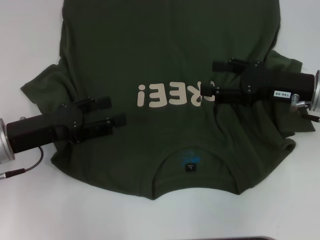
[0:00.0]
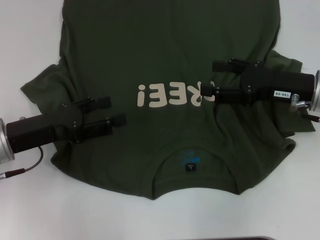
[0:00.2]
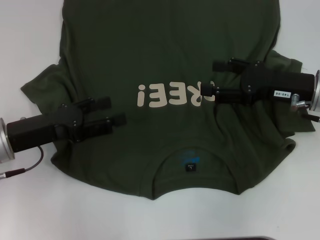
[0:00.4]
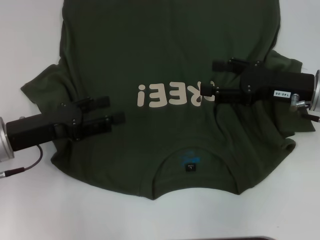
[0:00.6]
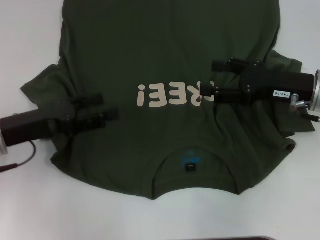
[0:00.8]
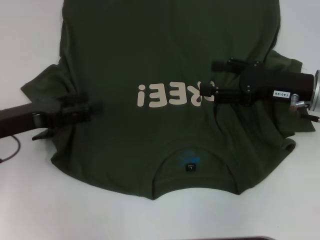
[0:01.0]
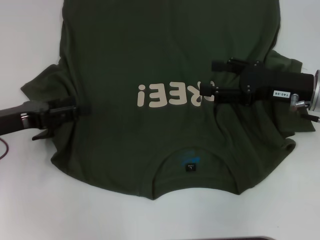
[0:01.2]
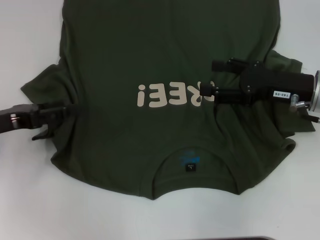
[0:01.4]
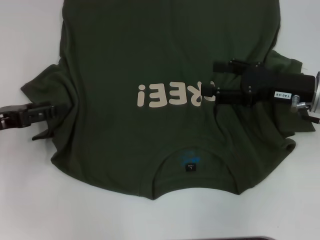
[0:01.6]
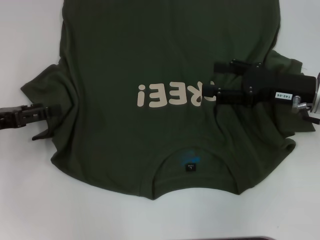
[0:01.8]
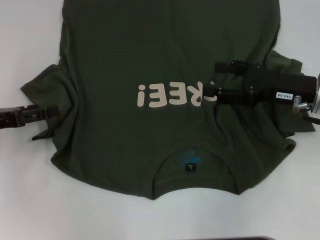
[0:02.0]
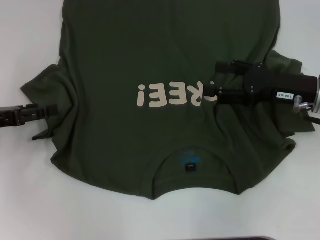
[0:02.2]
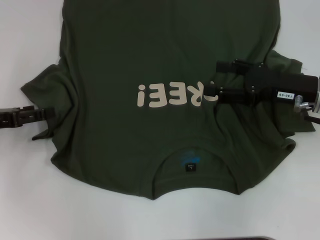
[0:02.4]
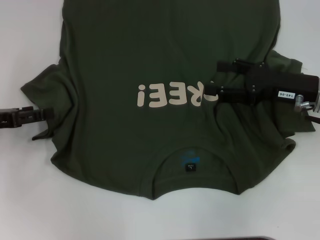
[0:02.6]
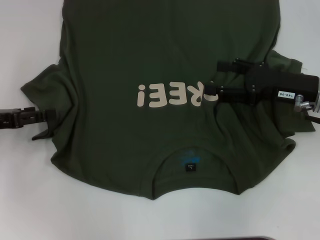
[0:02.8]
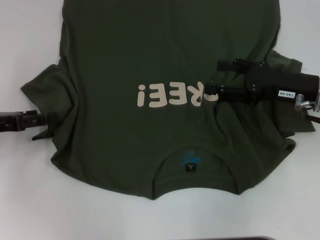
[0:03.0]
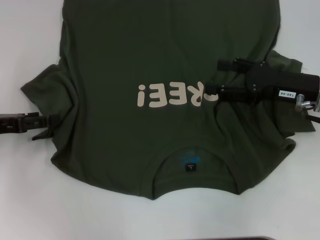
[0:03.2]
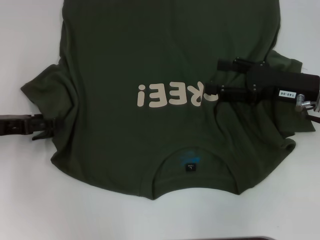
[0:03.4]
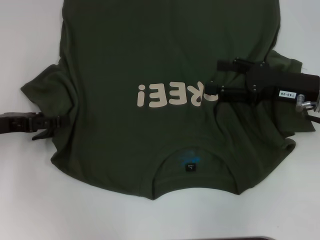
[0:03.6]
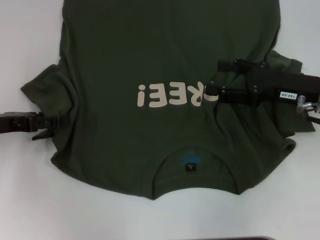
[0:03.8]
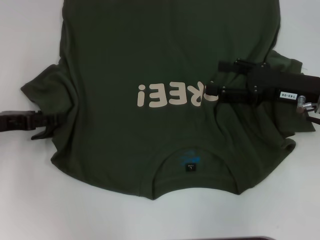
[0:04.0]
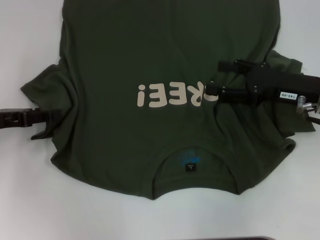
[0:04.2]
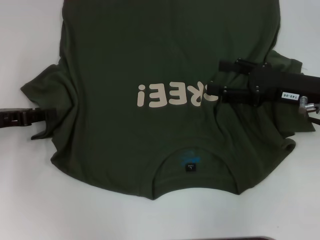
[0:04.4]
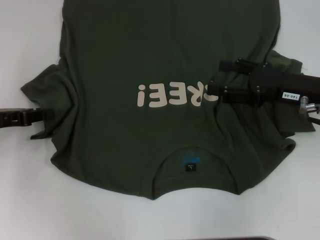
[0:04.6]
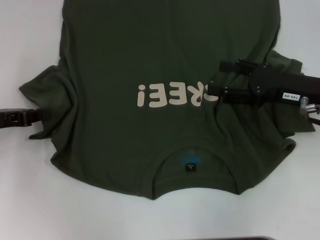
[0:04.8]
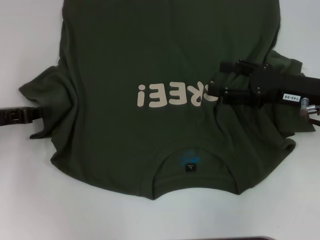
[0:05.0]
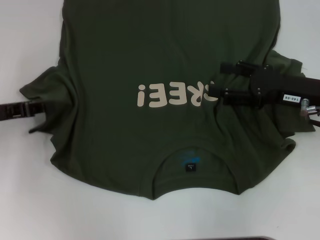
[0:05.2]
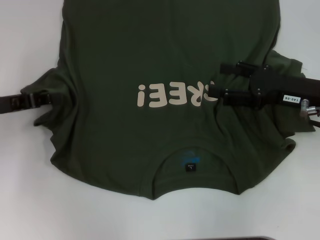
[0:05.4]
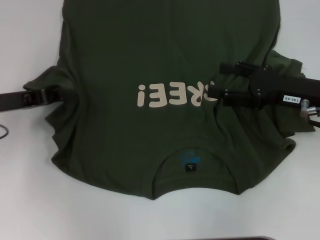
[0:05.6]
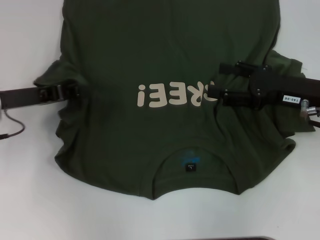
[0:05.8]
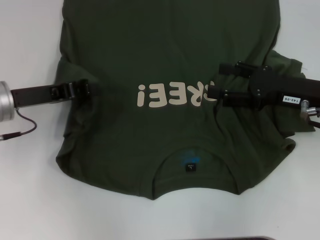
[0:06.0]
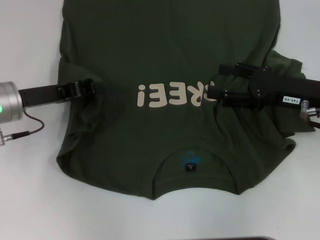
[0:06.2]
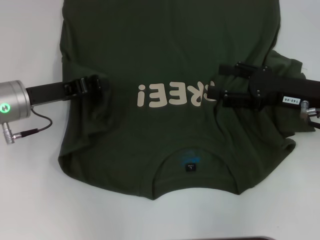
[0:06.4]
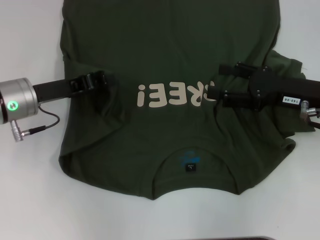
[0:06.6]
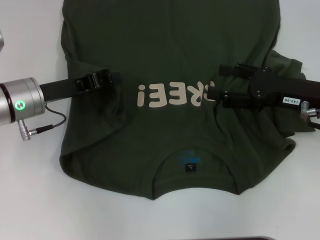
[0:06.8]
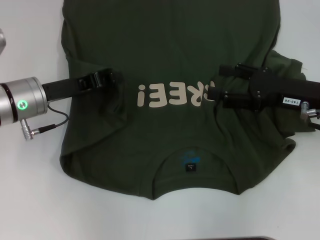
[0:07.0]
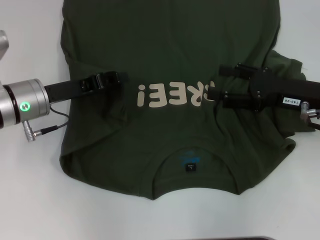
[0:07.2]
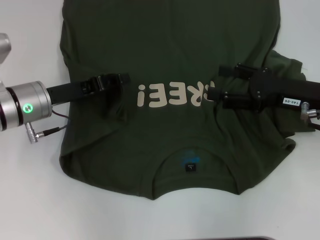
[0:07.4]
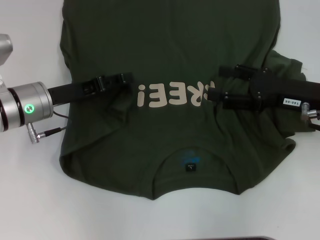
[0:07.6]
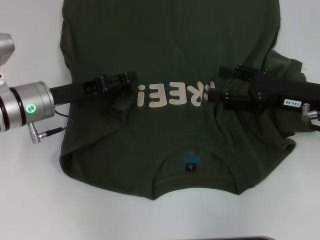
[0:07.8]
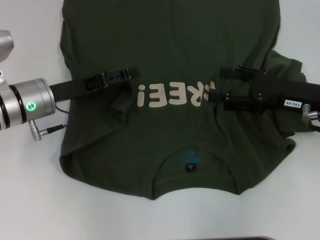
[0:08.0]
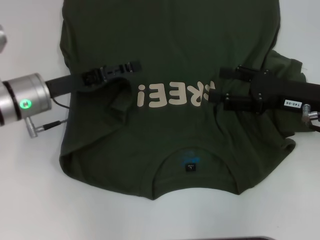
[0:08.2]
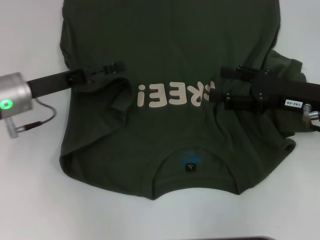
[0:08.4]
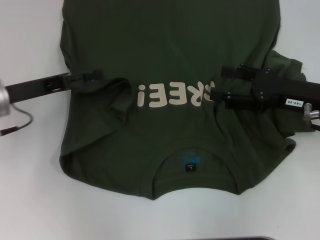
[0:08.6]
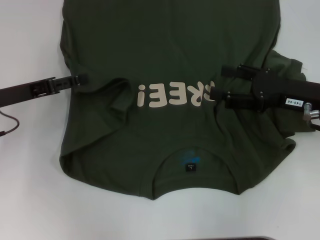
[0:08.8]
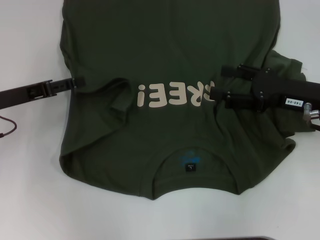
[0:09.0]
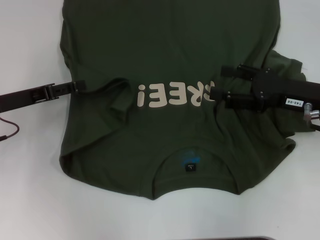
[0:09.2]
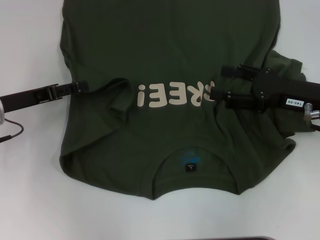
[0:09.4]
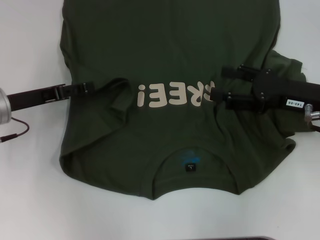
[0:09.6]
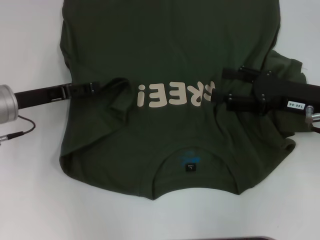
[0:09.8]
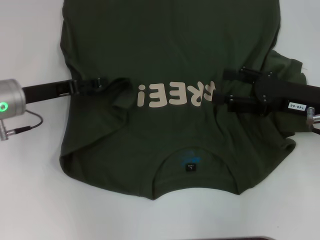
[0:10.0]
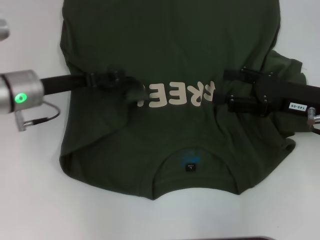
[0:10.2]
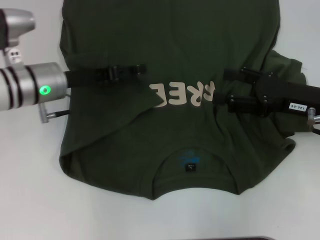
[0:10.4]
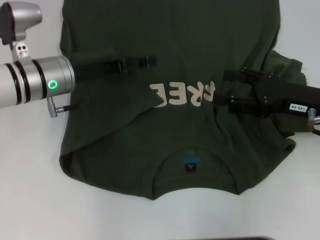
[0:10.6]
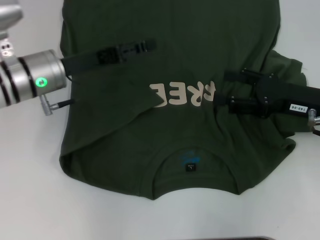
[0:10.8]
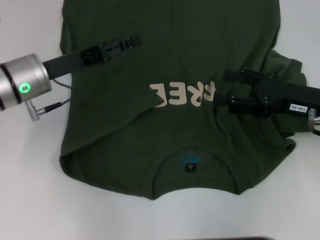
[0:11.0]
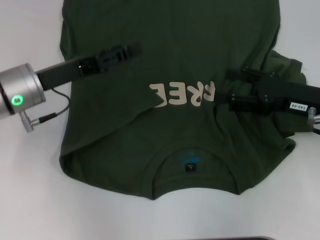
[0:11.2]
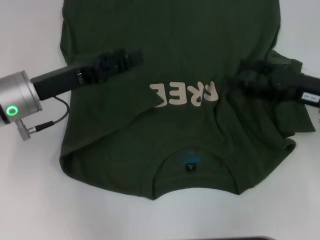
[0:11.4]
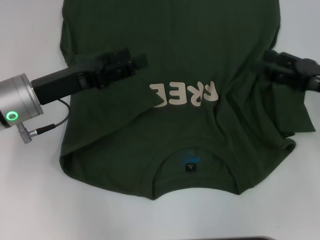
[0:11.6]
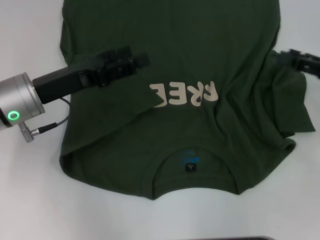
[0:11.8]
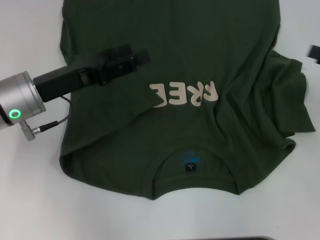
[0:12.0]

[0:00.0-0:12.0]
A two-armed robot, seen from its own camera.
Step, 0:00.0 to 0:11.2: Fold the bottom left sleeve with your left hand.
0:00.0 to 0:01.6: The left gripper travels to the left by approximately 5 cm.
0:01.6 to 0:04.4: The grippers move only a little.
0:04.4 to 0:06.0: The left gripper travels to the right by about 5 cm, and closes up.
0:06.0 to 0:07.6: The left gripper moves some 5 cm, and opens its fingers.
0:07.6 to 0:09.0: The left gripper shifts about 5 cm to the left, and opens up.
0:09.0 to 0:10.4: The left gripper shifts some 10 cm to the right.
0:10.4 to 0:12.0: The left gripper heads backward, covering some 5 cm, while the right gripper shifts some 10 cm to the right.

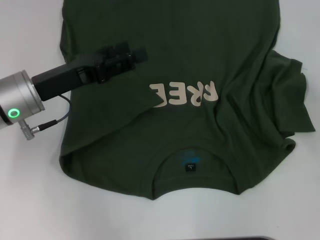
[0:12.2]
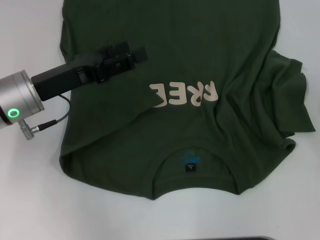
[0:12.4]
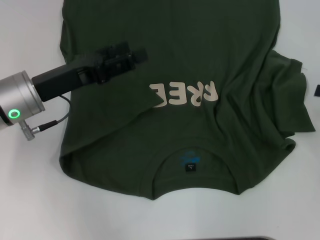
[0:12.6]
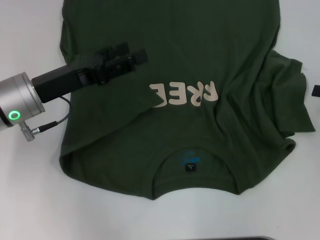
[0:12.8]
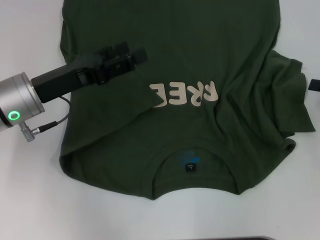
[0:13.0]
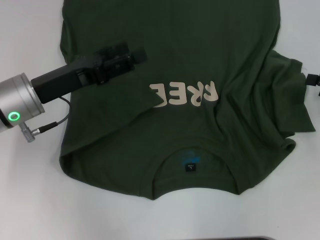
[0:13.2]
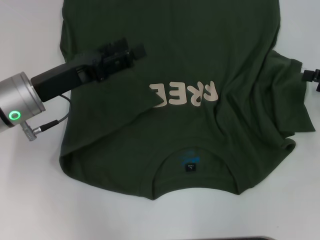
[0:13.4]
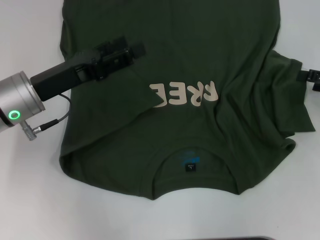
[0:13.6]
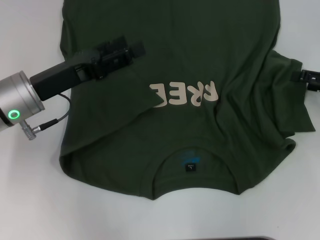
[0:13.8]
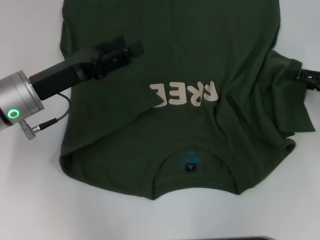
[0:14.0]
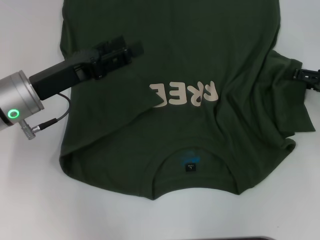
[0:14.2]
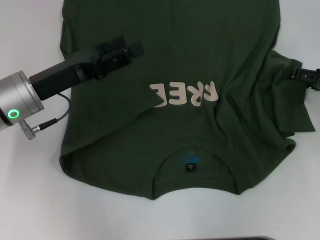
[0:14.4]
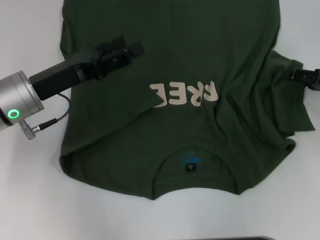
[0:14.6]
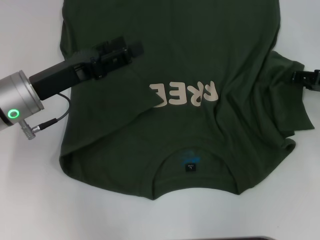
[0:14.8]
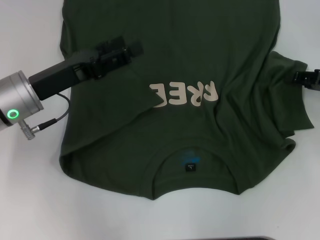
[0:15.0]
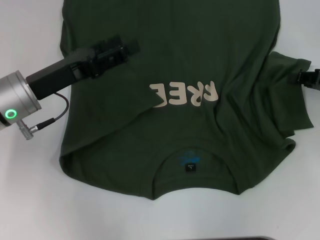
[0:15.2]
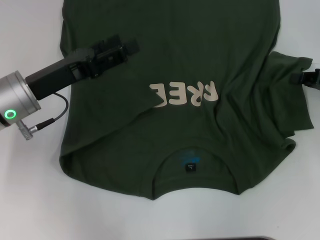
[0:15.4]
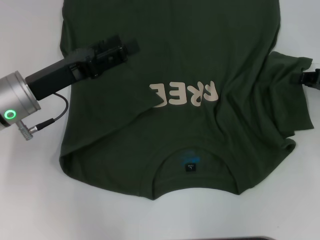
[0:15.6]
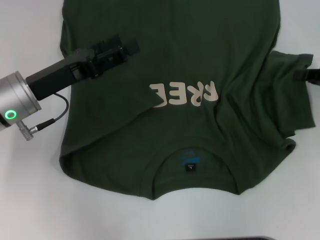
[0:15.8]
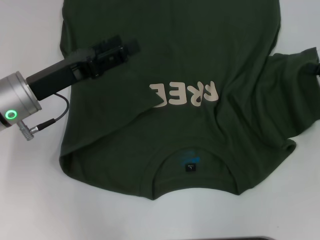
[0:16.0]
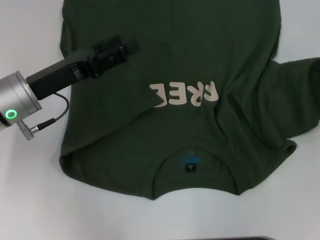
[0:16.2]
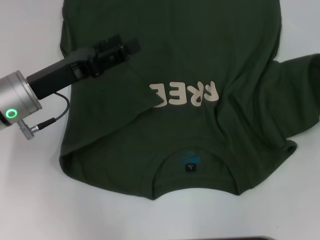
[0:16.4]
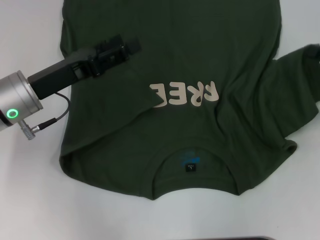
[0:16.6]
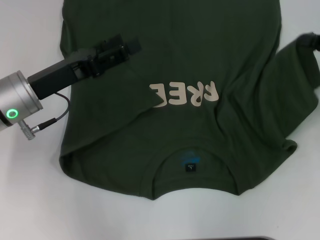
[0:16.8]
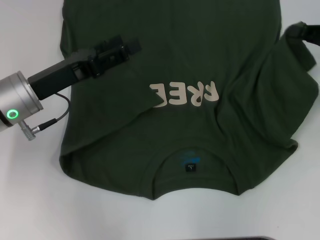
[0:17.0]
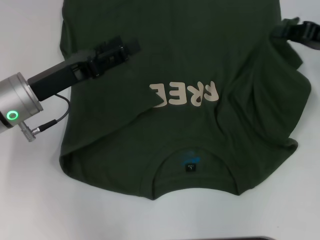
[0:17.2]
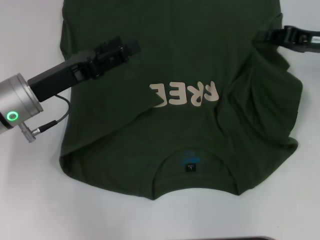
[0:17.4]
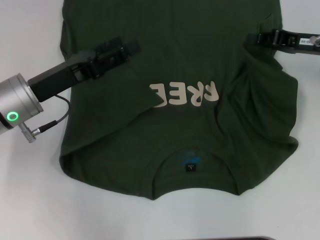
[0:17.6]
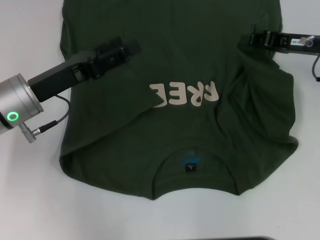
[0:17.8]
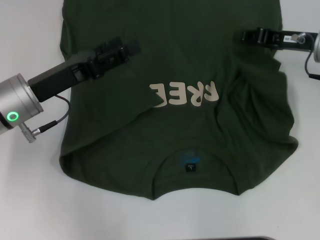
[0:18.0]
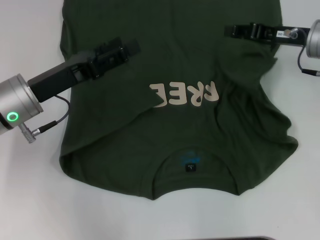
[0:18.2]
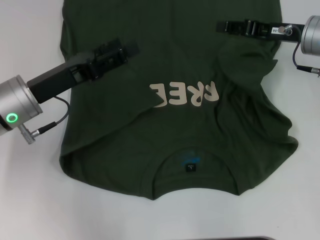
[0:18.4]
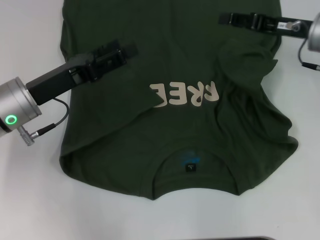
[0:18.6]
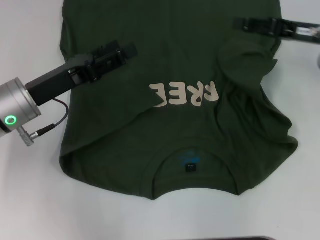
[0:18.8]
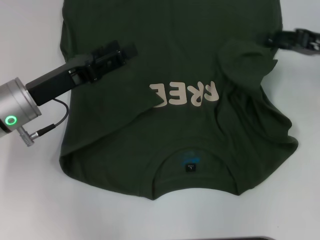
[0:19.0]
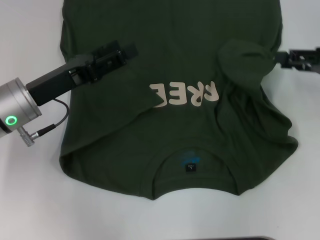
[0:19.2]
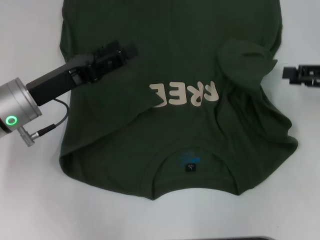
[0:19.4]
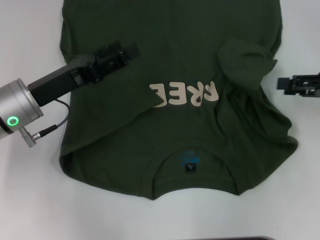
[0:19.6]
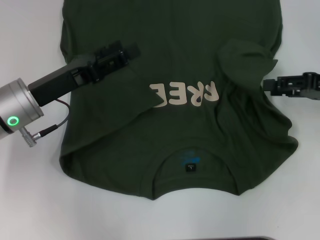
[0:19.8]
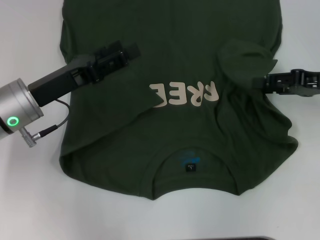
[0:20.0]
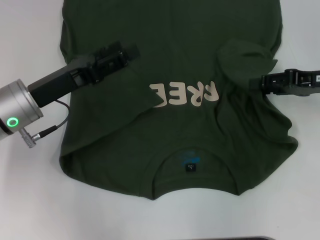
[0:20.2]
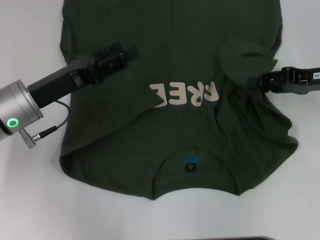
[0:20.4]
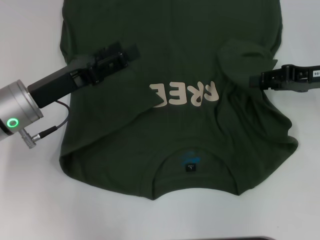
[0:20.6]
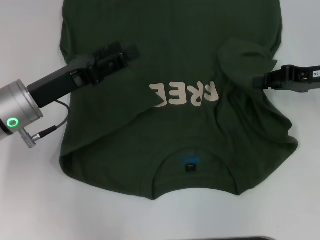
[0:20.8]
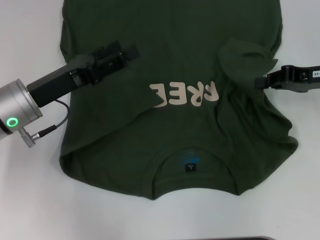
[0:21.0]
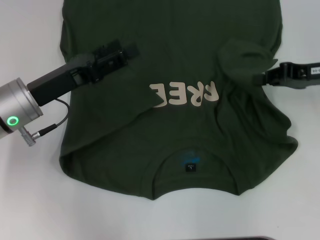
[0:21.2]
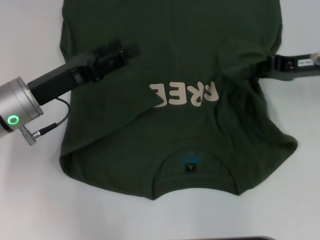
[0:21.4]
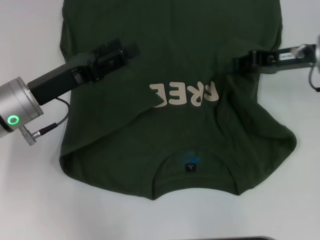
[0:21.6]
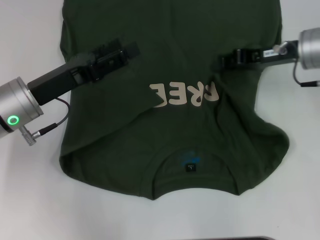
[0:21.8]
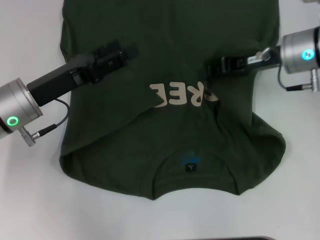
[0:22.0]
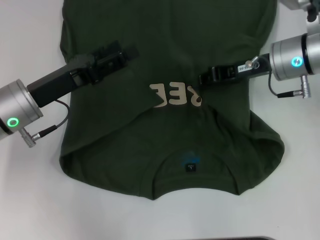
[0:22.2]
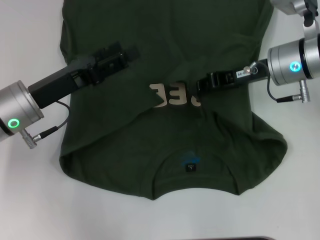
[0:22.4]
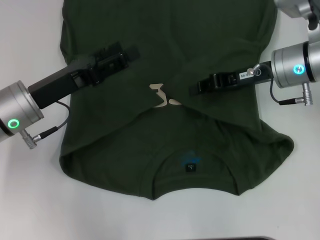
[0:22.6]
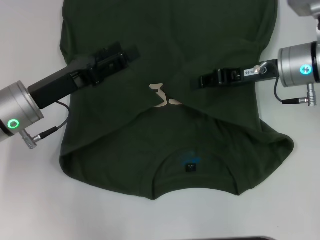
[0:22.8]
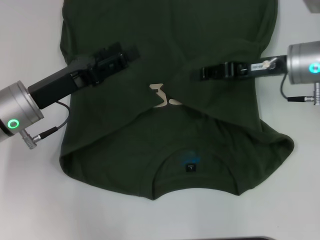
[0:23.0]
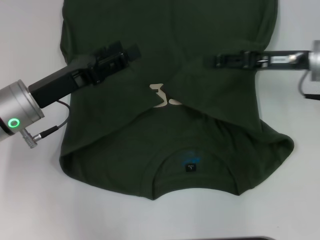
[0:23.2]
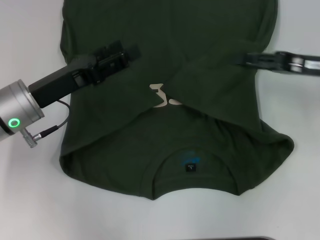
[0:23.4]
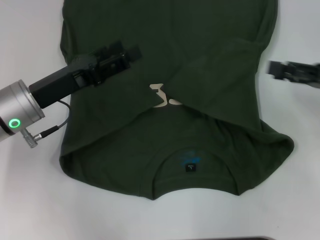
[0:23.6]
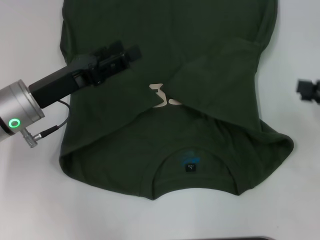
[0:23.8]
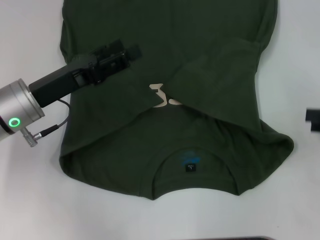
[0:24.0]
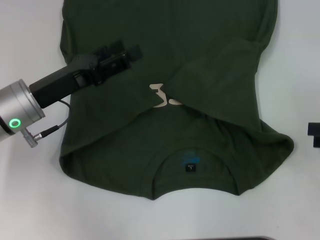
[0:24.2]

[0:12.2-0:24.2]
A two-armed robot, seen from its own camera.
Step, 0:12.2 to 0:23.0: Fold the bottom right sleeve with your right hand.
0:12.2 to 0:13.8: The right gripper moves some 5 cm.
0:13.8 to 0:15.2: The right gripper closes.
0:15.2 to 0:16.6: The grippers make only small movements.
0:16.6 to 0:18.2: The right gripper is displaced to the left and forward by approximately 15 cm.
0:18.2 to 0:19.8: The right gripper travels backward and to the right by about 10 cm, and opens up.
0:19.8 to 0:21.2: The right gripper closes.
0:21.2 to 0:22.6: The right gripper travels to the left by approximately 10 cm.
0:22.6 to 0:24.2: The right gripper is displaced to the right and backward by roughly 25 cm, and opens its fingers.
